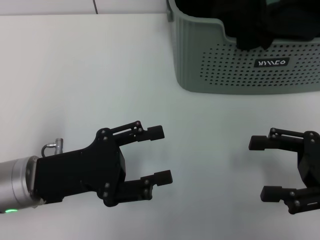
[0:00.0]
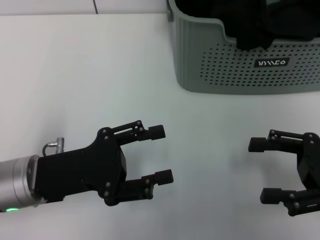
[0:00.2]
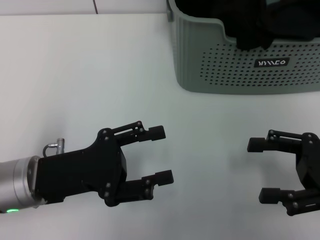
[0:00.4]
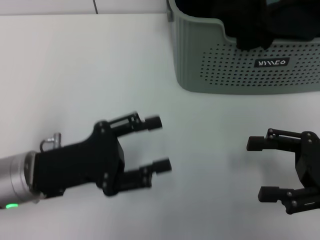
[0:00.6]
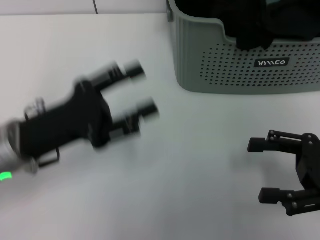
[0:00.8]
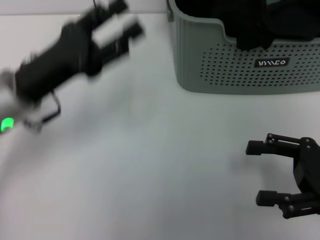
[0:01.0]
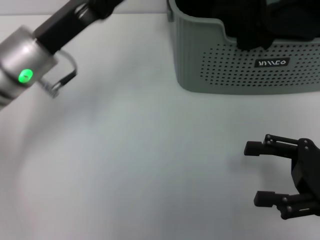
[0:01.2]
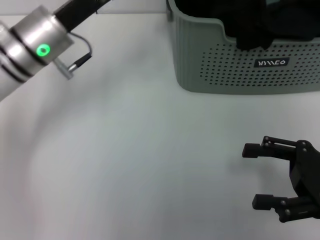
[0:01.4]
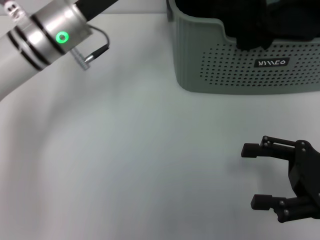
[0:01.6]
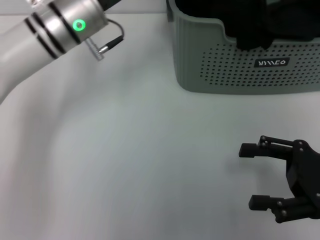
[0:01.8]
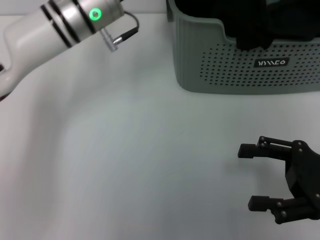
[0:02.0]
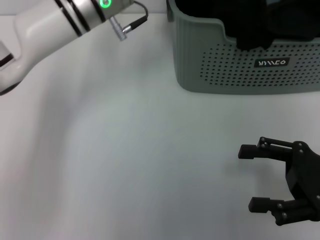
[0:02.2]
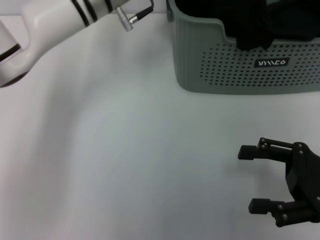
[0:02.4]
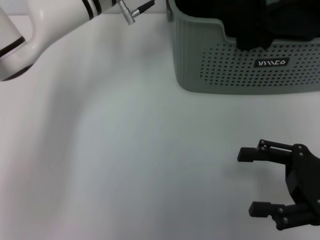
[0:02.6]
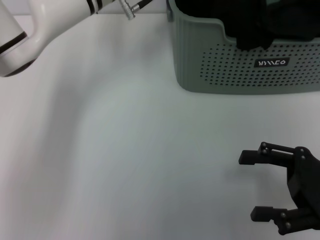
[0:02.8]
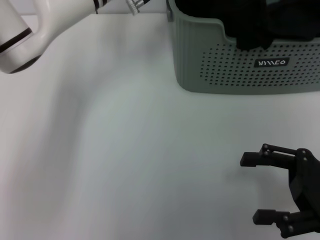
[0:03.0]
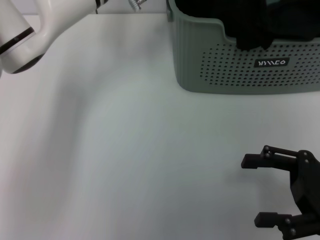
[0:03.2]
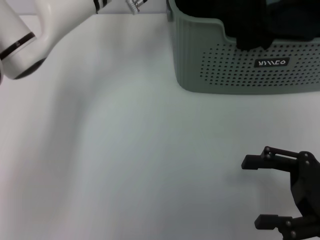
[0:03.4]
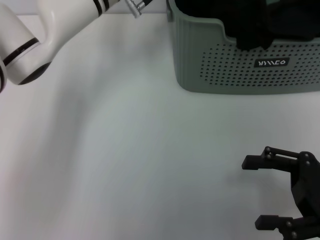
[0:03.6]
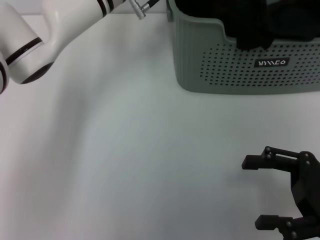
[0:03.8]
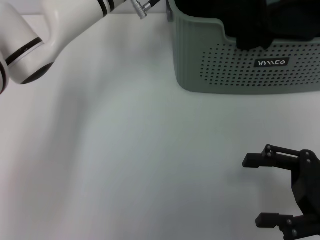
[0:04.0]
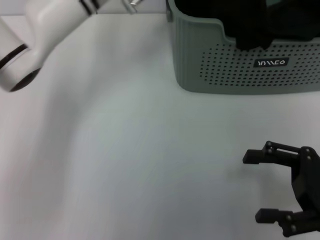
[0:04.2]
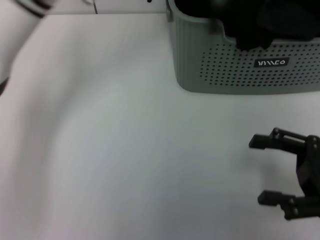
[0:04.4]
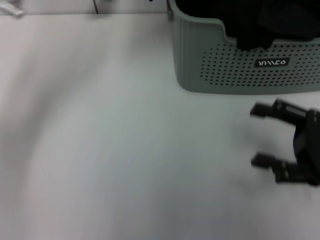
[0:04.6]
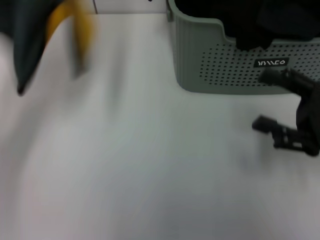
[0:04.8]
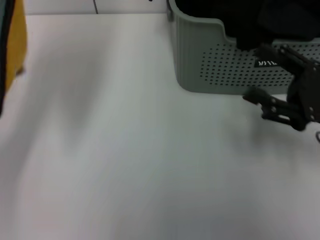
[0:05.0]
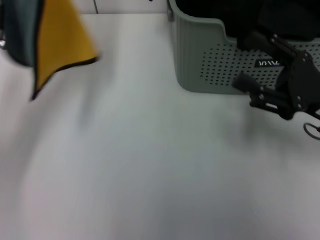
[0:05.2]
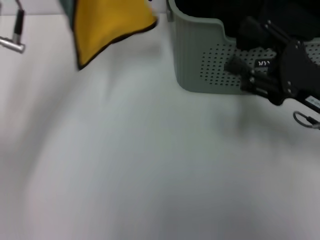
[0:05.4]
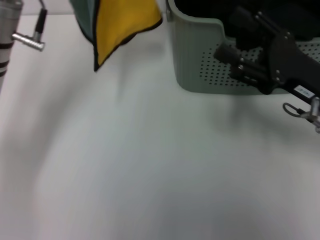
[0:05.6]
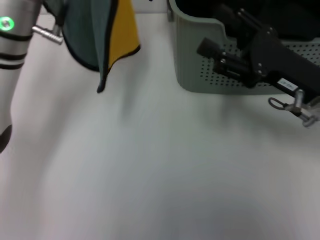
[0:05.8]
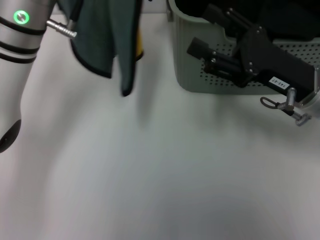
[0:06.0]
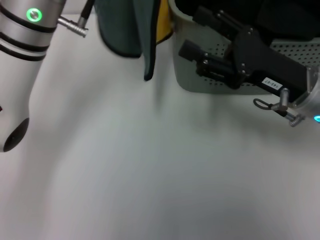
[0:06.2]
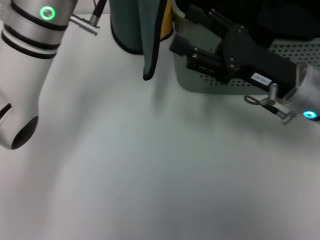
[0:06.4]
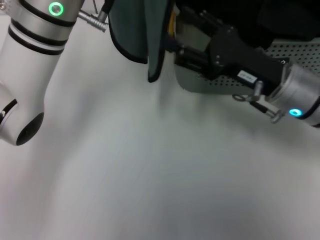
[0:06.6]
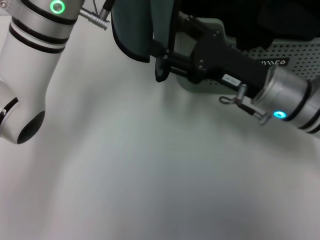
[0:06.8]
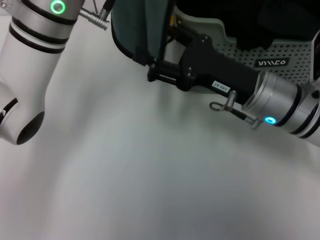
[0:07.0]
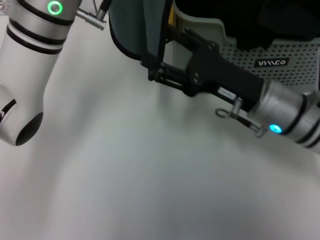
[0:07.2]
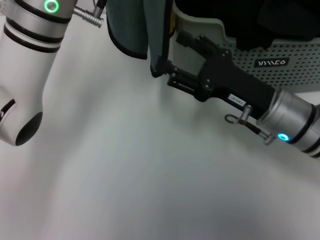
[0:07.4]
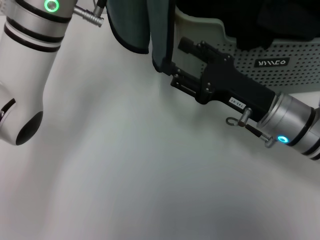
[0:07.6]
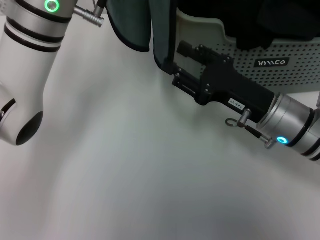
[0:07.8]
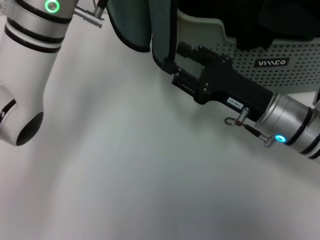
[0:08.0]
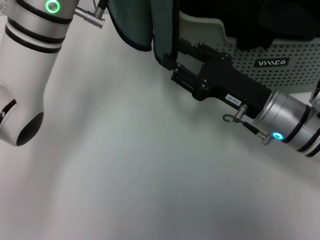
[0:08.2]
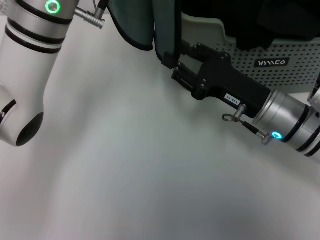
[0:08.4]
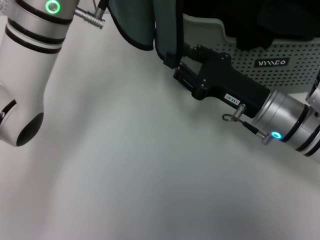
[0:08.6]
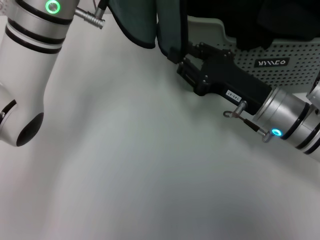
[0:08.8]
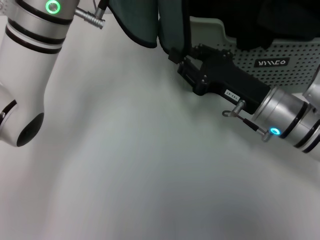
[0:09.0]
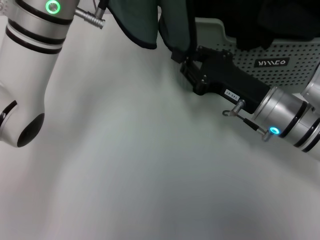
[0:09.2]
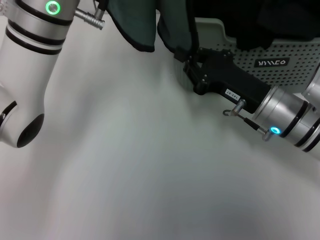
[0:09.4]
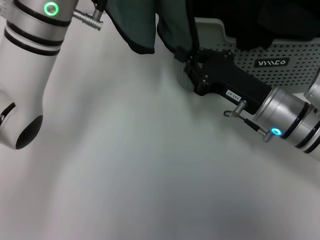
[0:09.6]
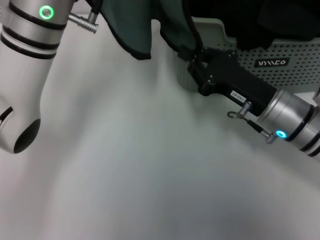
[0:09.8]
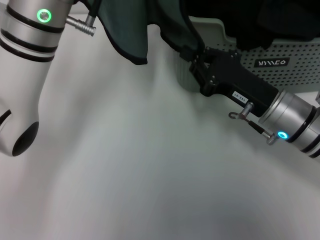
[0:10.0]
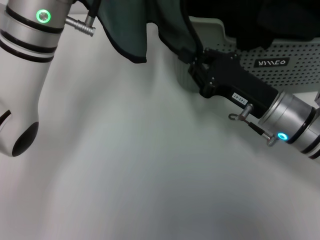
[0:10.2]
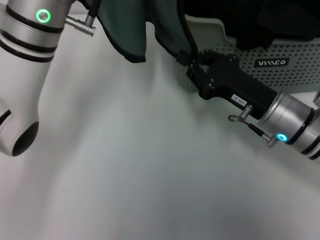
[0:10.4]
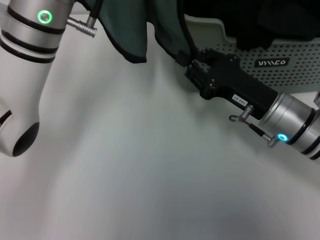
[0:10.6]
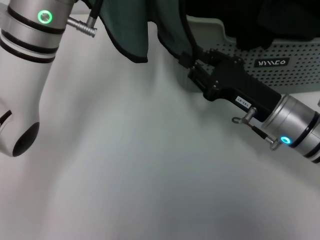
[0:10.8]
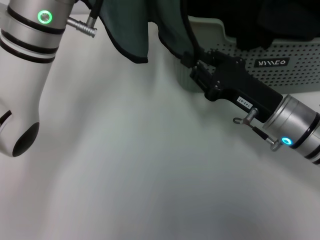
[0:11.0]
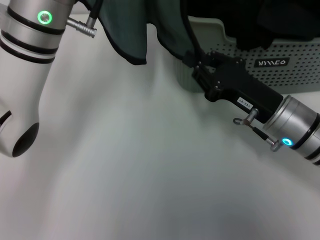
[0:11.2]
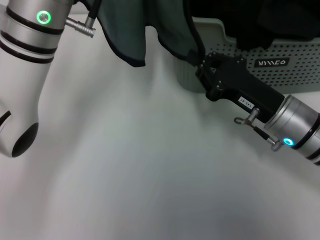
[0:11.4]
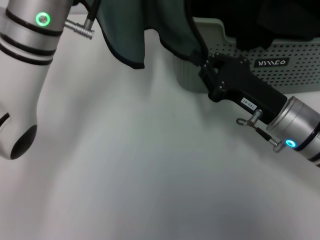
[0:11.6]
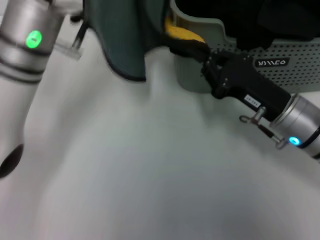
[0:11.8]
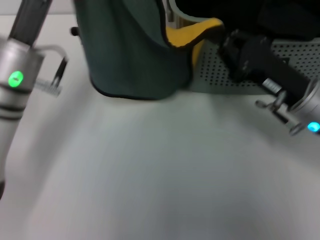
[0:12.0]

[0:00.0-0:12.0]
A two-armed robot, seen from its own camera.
Task of the whole recording: pick up the towel from the storage box and lay it flat on the table.
Step, 0:00.0 to 0:04.2: Pick up a towel with the left gripper.
Step, 0:04.4 to 0:09.4: Spread the towel flat with the left gripper.
0:00.0 to 0:01.6: The left gripper shifts approximately 15 cm forward and upward.
0:01.6 to 0:03.0: The left gripper heads to the right and forward, covering approximately 10 cm.
0:03.0 to 0:04.4: The left gripper goes about 5 cm to the left, and closes.
0:04.4 to 0:06.0: The left gripper reaches some 10 cm to the left, then returns; the right gripper moves forward and to the left, some 10 cm.
0:06.0 to 0:07.6: The right gripper changes place by approximately 5 cm.
0:07.6 to 0:09.0: The right gripper closes.
0:09.0 to 0:10.4: The grippers stay close to where they were, moving slightly.
0:10.4 to 0:12.0: The left gripper heads downward and to the left, covering about 10 cm.

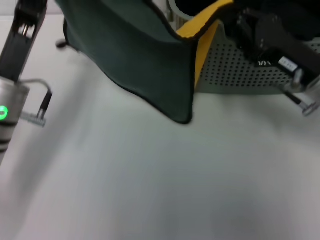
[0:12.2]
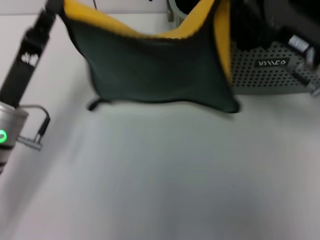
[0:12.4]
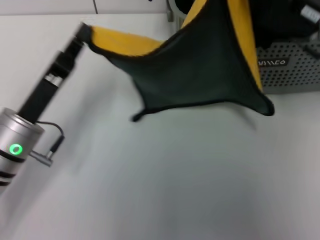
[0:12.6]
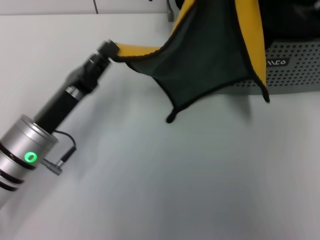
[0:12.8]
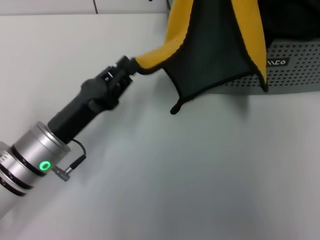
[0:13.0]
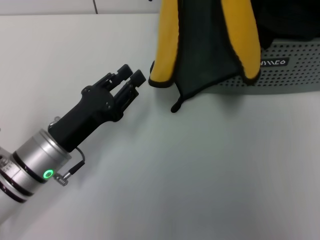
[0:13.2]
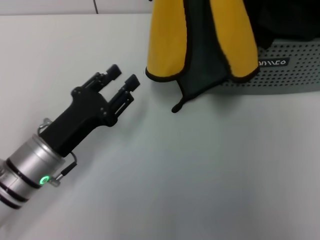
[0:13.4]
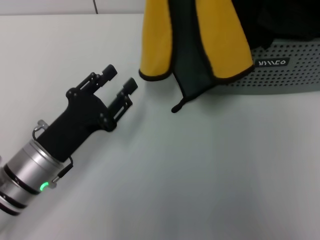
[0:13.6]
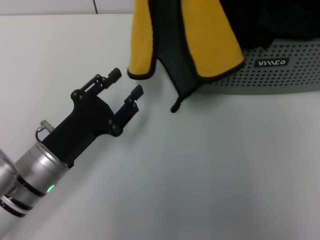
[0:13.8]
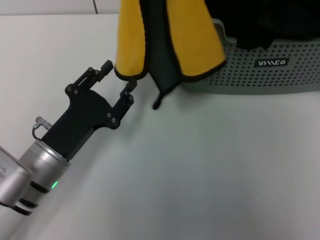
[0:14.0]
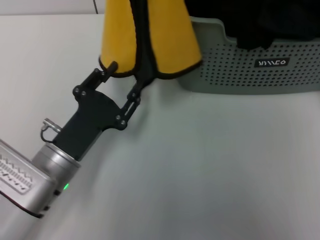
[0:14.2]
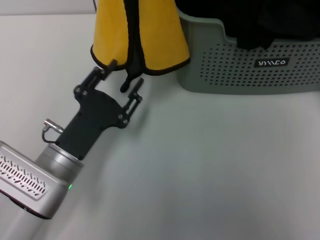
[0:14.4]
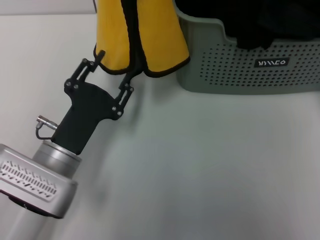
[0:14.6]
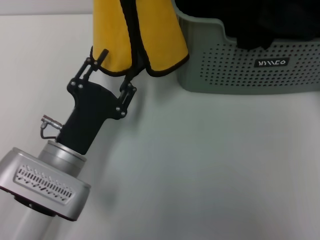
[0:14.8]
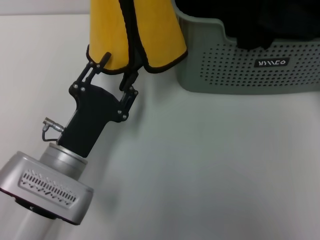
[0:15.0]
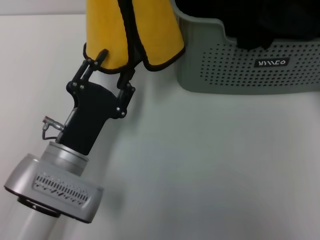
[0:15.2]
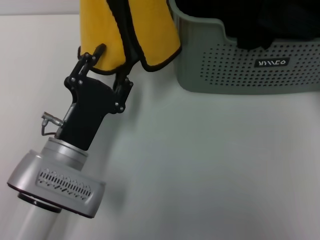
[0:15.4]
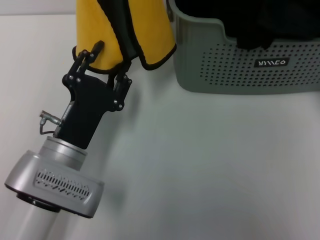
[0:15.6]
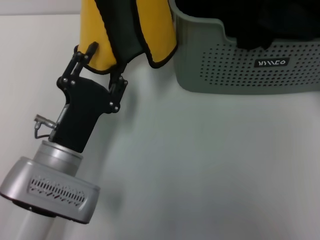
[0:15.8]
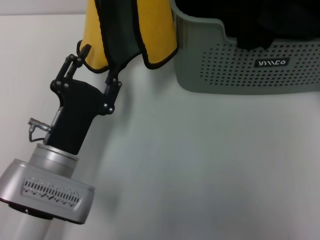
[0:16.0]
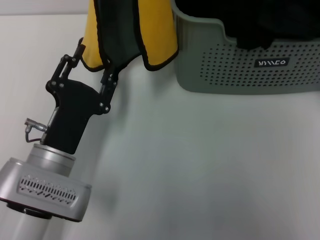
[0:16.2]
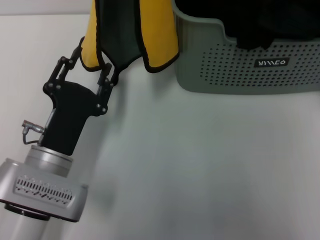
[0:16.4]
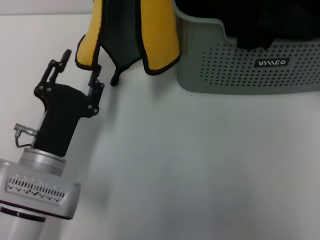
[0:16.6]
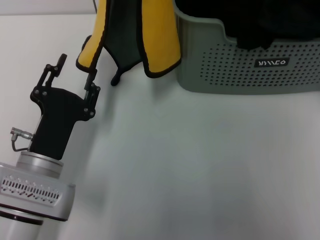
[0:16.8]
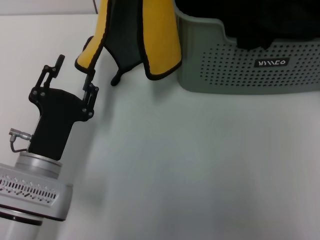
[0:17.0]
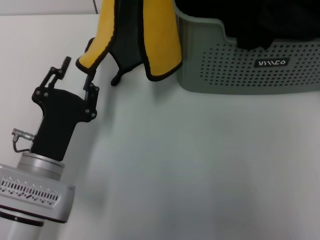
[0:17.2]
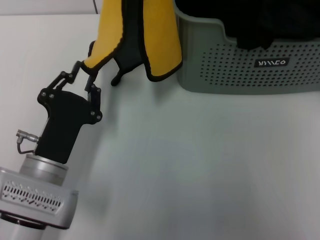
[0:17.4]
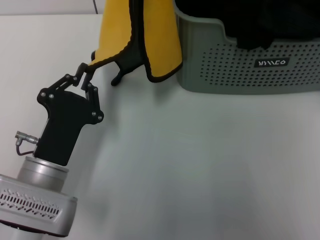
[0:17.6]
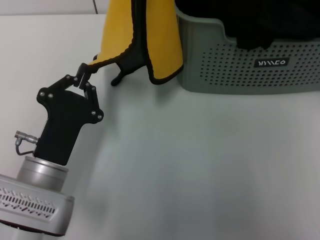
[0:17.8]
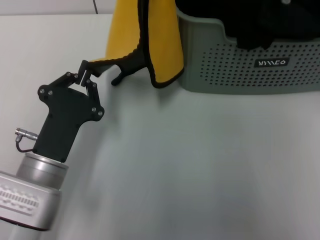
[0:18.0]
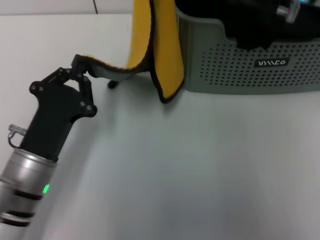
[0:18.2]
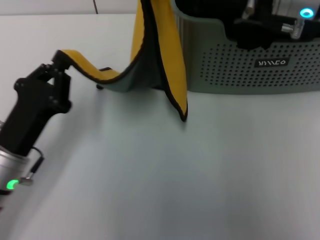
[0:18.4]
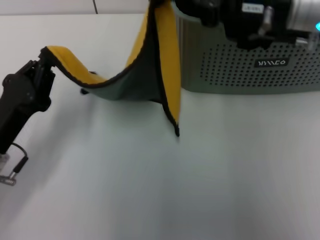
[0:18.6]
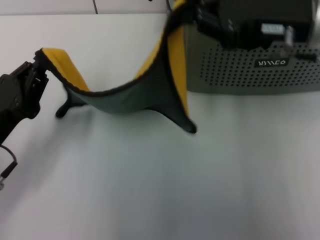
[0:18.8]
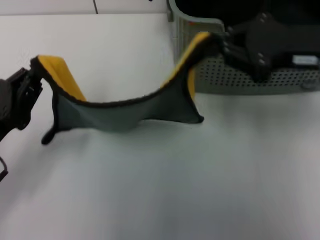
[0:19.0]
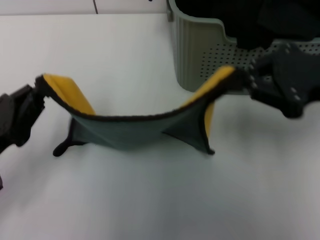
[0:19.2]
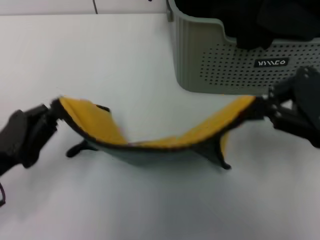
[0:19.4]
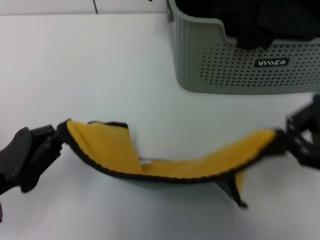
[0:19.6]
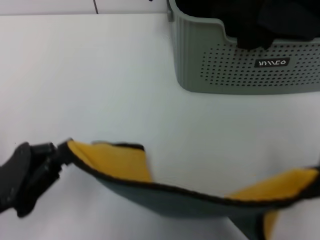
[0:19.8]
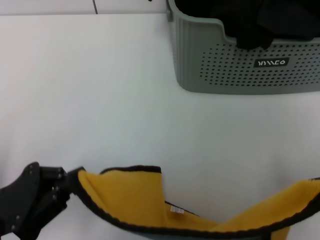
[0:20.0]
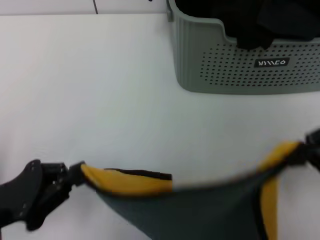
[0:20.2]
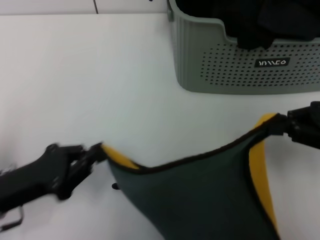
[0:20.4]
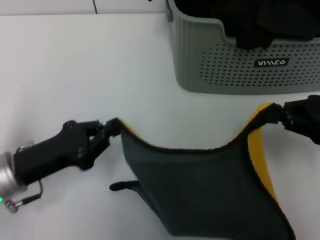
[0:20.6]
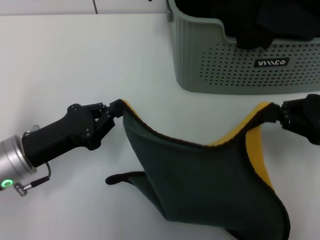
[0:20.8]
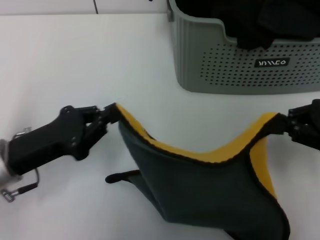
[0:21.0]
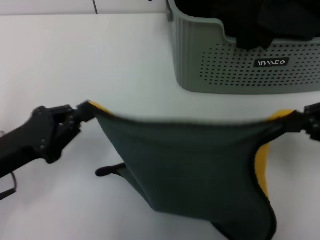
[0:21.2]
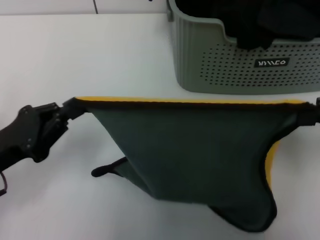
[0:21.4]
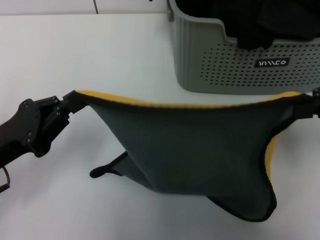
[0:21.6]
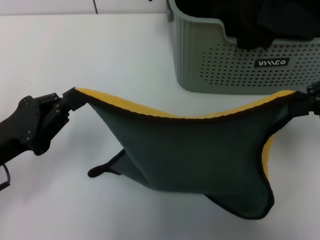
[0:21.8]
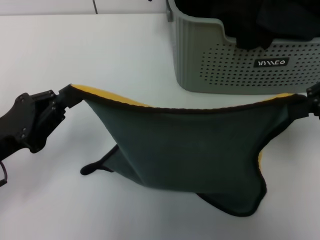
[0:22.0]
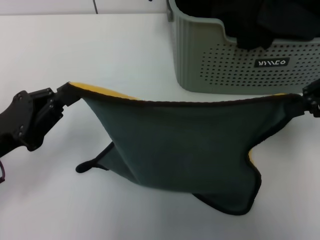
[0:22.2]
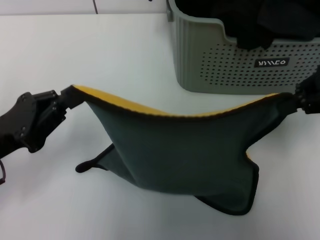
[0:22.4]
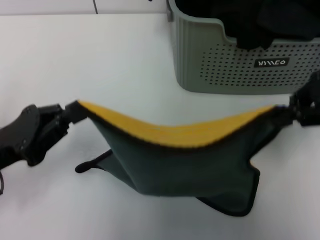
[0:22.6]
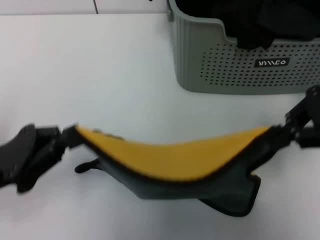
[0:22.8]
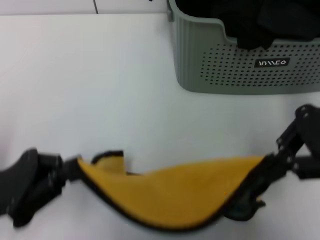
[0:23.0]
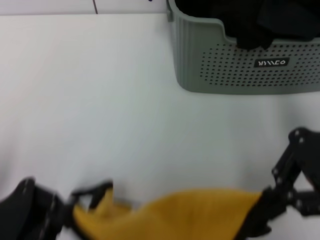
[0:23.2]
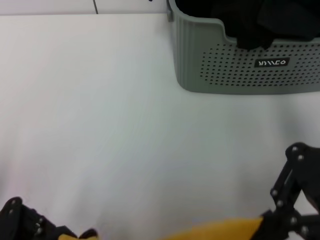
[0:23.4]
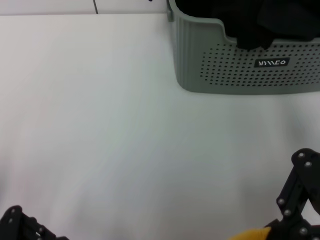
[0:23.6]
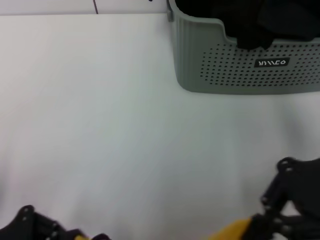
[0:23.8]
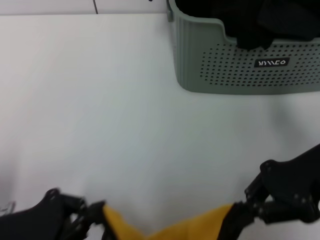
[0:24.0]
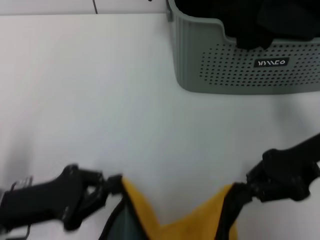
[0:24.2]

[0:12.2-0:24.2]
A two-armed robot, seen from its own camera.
Task of the whole recording: pick up the towel from the storage box and lay it flat on the table.
0:12.2 to 0:13.8: The right gripper goes roughly 15 cm upward and forward. The left gripper is displaced downward and backward by some 10 cm, and opens.
0:15.2 to 0:16.6: The grippers move only a little.
0:16.6 to 0:18.2: The left gripper closes.
0:18.2 to 0:19.8: The right gripper goes approximately 20 cm backward and to the right; the left gripper shifts some 10 cm to the left.
0:19.8 to 0:21.2: The right gripper travels downward by some 5 cm.
0:21.2 to 0:22.6: The right gripper goes about 10 cm upward and forward.
0:22.6 to 0:24.2: The right gripper goes some 10 cm downward.
